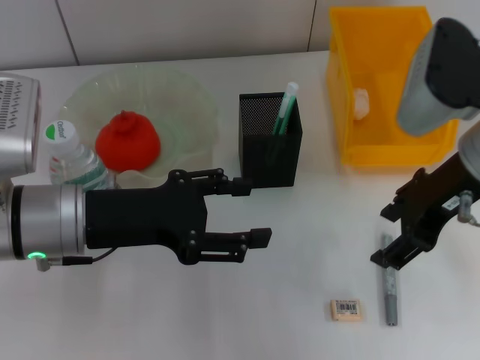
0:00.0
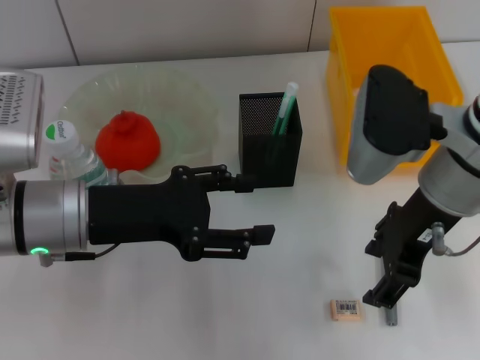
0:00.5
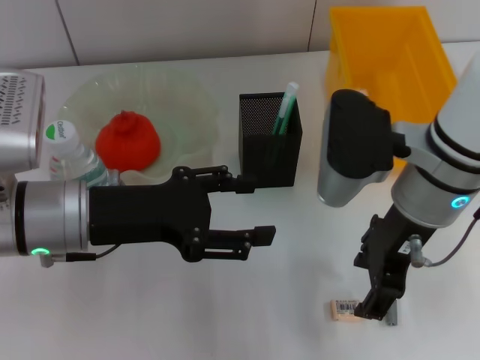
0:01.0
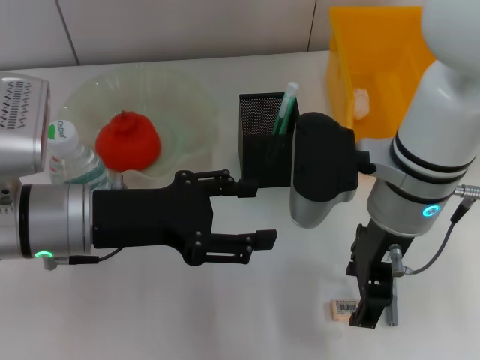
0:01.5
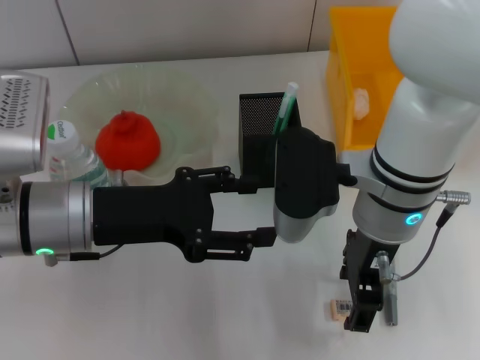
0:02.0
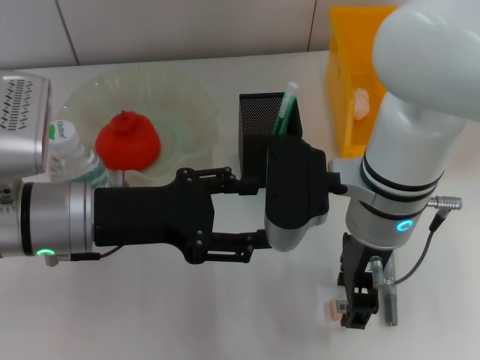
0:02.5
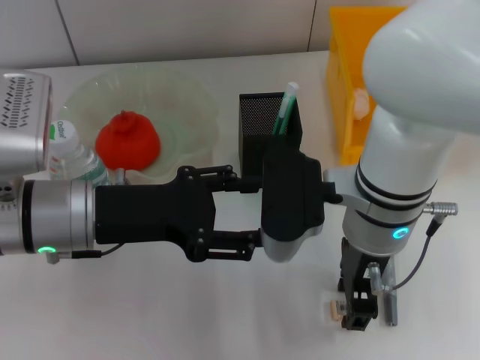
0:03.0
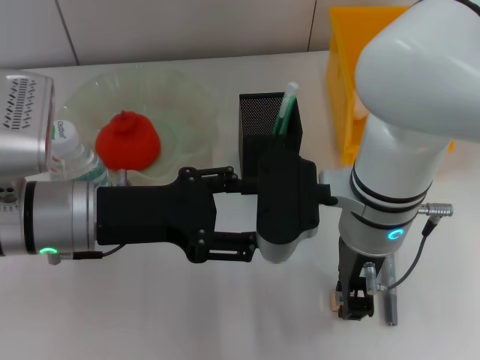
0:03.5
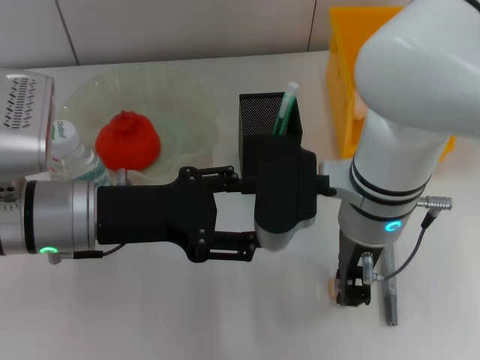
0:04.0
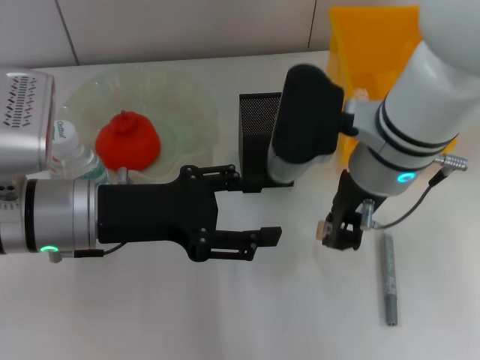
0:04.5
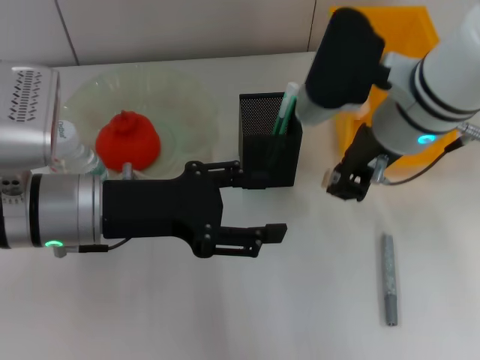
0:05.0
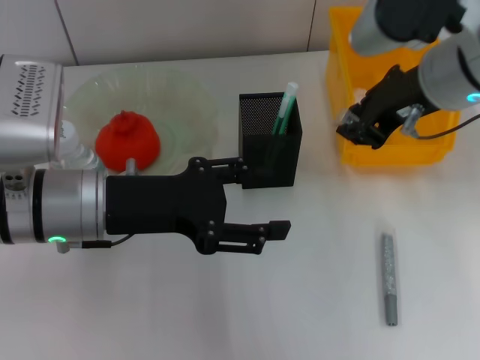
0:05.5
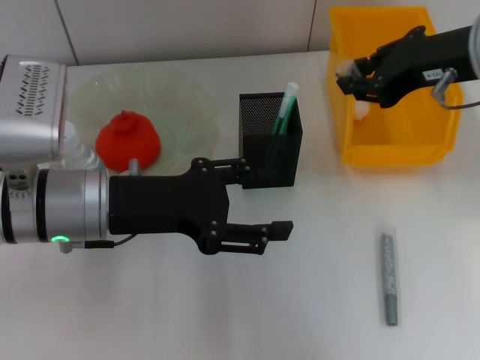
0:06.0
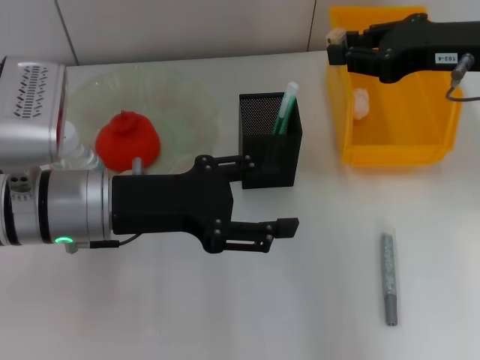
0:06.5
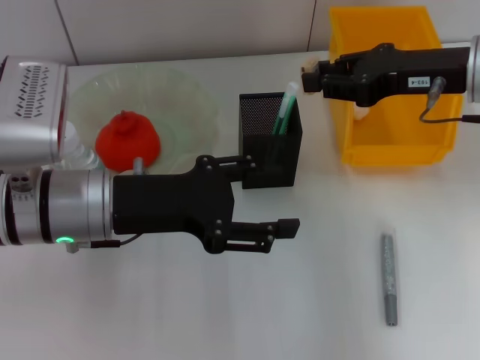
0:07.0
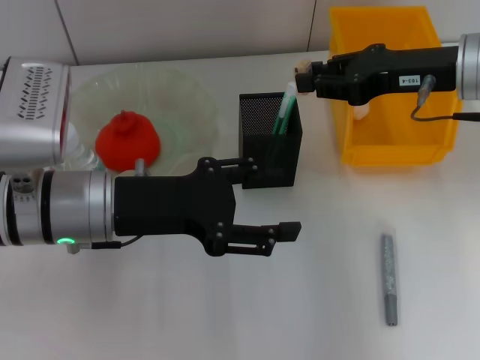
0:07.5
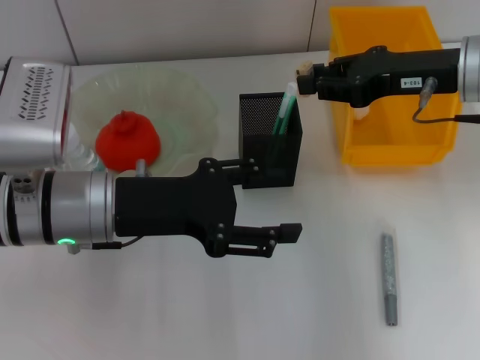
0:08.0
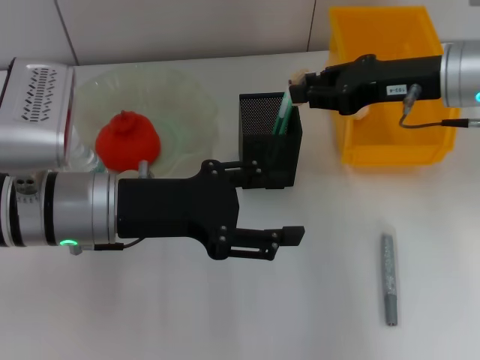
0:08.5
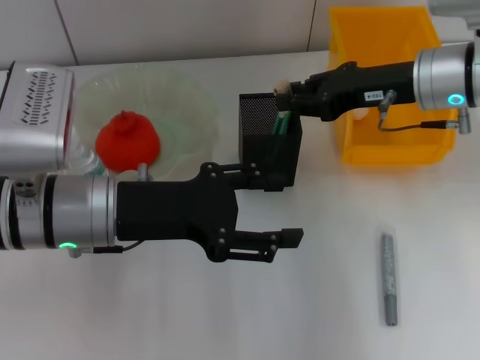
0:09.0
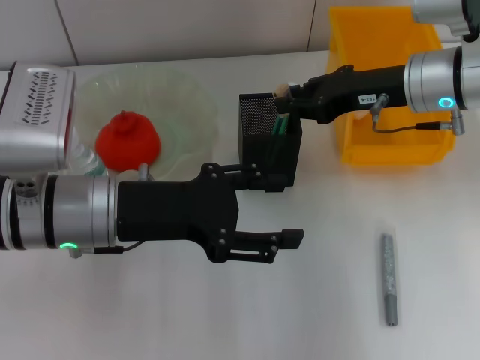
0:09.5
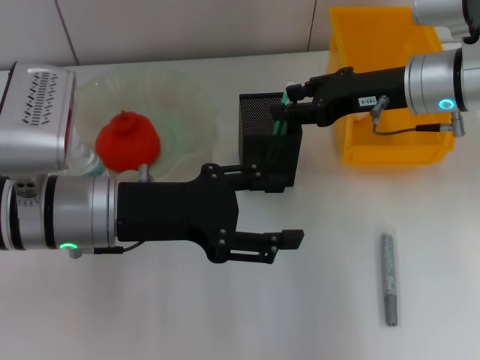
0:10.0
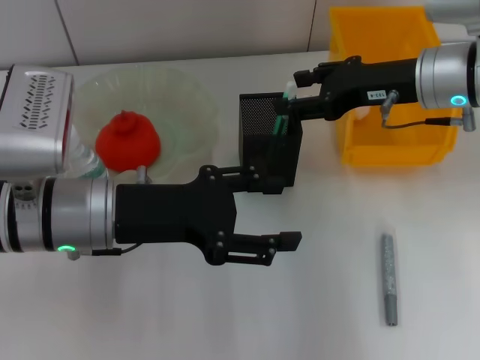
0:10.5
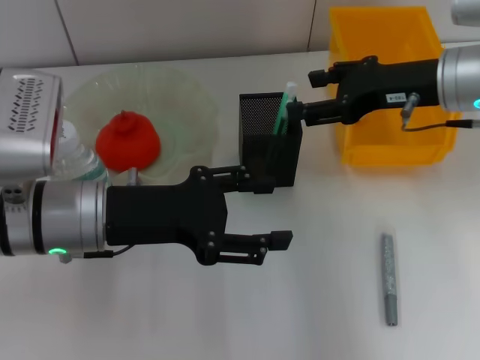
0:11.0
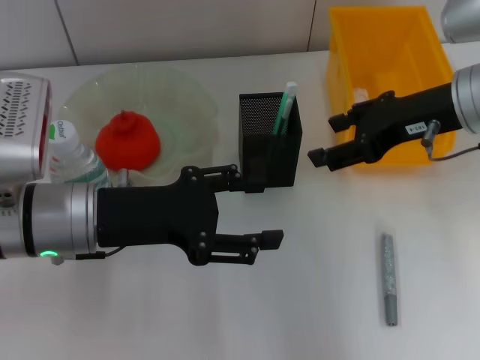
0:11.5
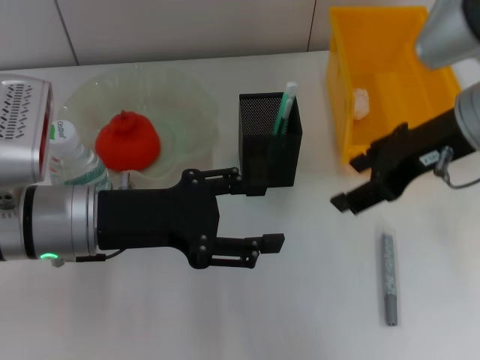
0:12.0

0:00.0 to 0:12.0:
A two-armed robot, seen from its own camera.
Step, 0:00.0 to 0:03.5: Grab the eraser with the right hand.
Step, 0:04.0 to 0:10.0: Put the eraser into the pen holder with the right hand.
0:00.0 to 0:02.0: The right gripper is displaced to the left by about 10 cm.
0:02.0 to 0:04.0: The right gripper closes.
0:04.0 to 0:06.0: The right gripper travels to the right and upward by some 15 cm.
0:06.0 to 0:08.0: The right gripper goes some 5 cm downward.
0:08.0 to 0:10.0: The grippers stay close to where they were, moving slightly.
0:10.0 to 0:12.0: The right gripper heads backward and upward, covering some 10 cm, and opens its fingers.

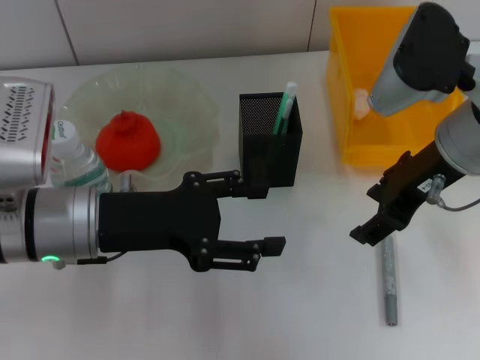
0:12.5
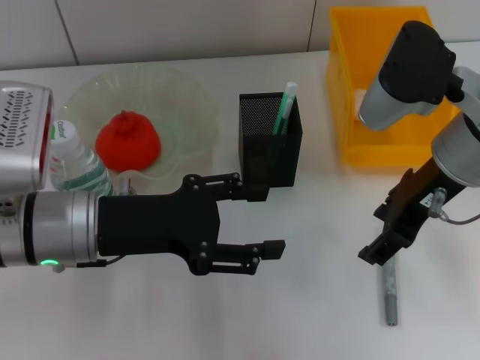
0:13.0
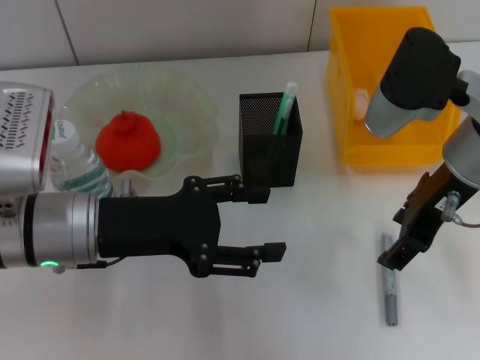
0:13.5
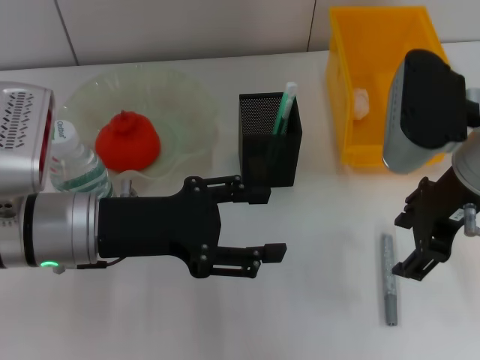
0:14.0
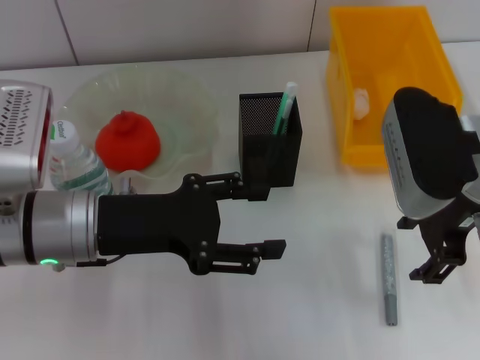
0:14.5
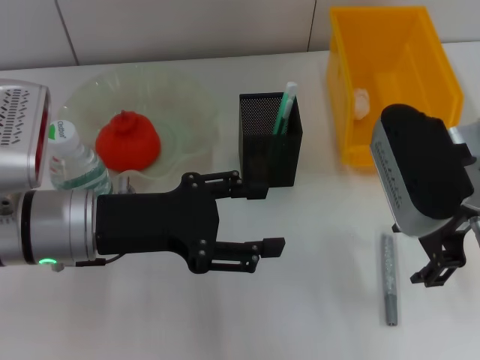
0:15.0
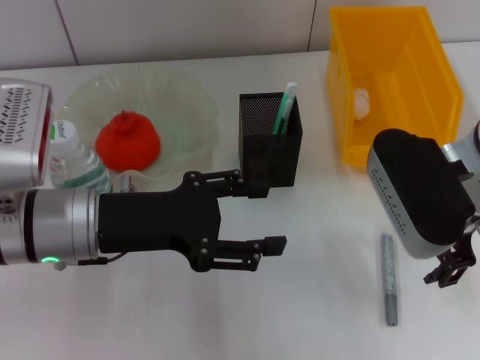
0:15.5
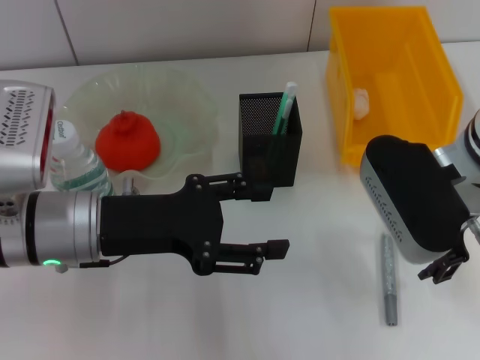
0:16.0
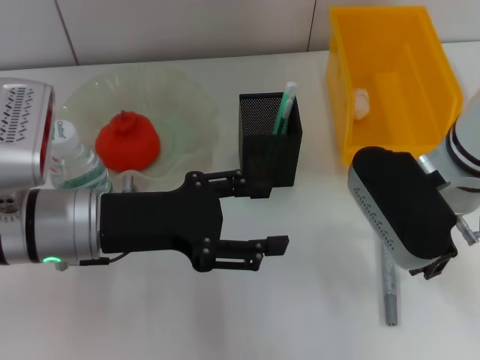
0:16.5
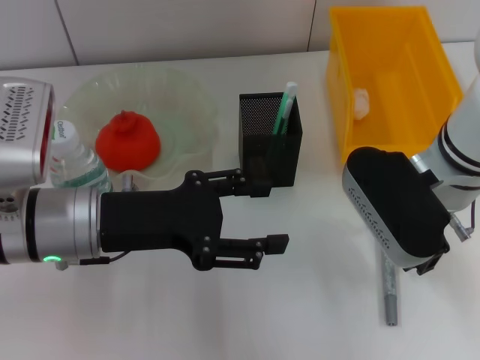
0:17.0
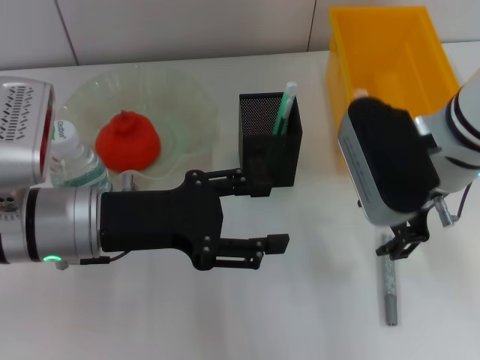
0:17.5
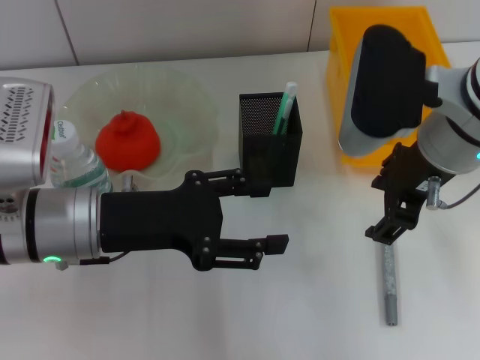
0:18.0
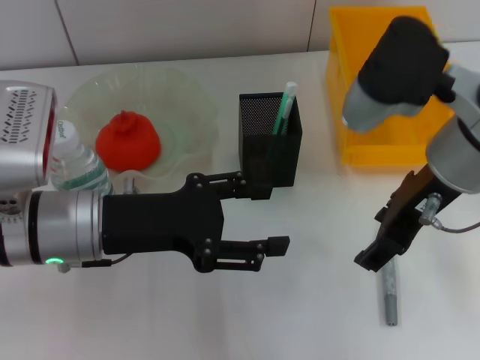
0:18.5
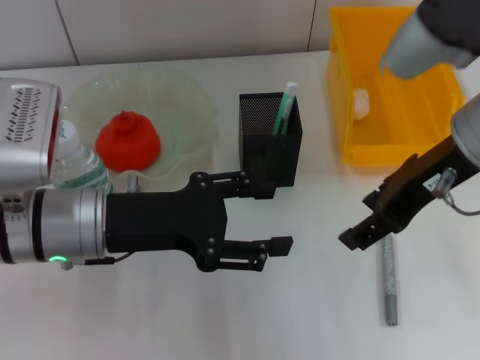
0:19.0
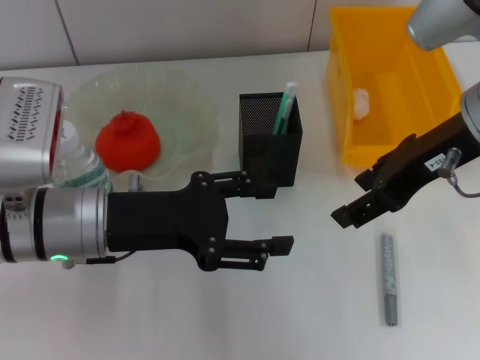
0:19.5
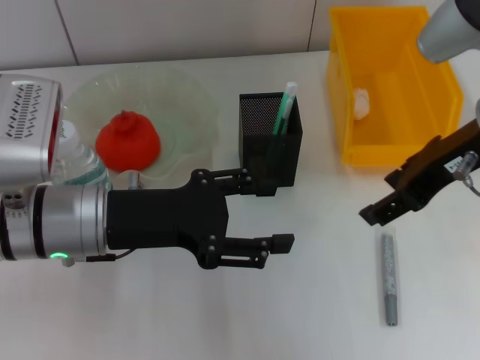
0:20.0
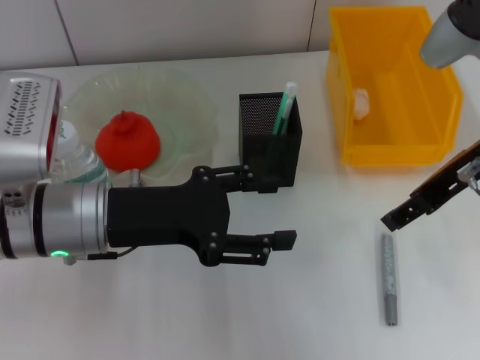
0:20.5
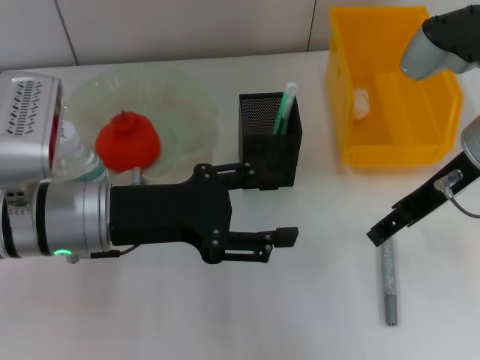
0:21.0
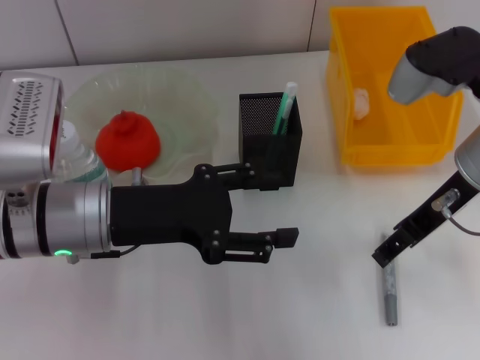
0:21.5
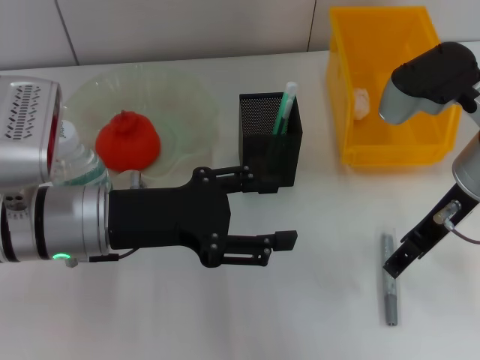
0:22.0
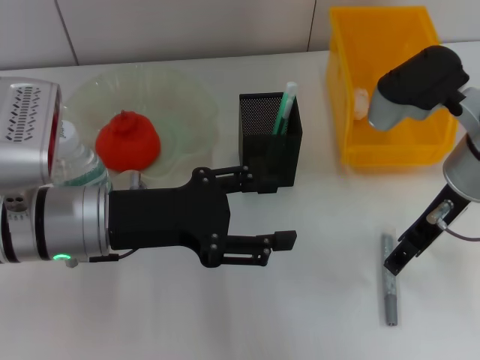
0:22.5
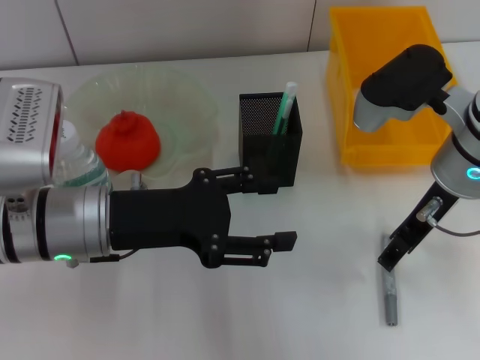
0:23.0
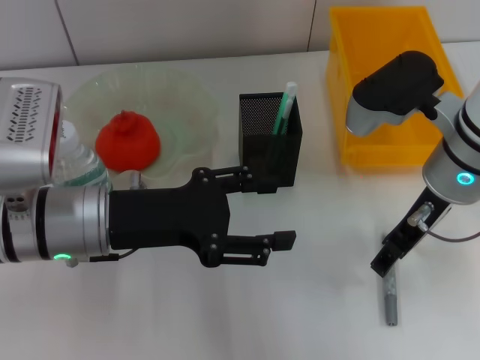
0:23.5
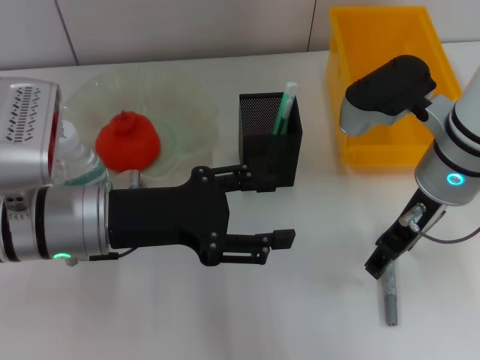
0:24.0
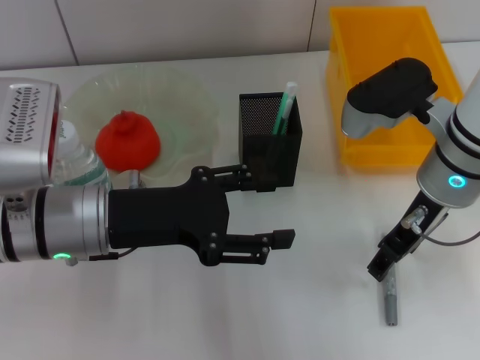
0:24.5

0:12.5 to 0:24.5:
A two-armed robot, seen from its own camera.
0:16.5 to 0:18.5: The right gripper moves upward, roughly 5 cm.
0:18.5 to 0:20.5: The right gripper is displaced to the right by some 5 cm.
0:20.5 to 0:22.5: The right gripper ends up some 5 cm from where it was.
0:22.5 to 0:24.5: The grippers move only a little.

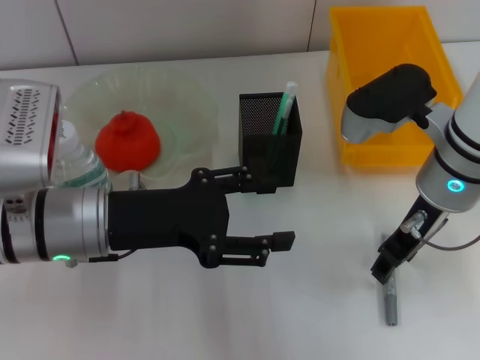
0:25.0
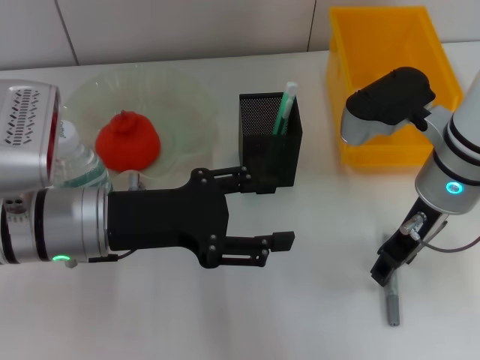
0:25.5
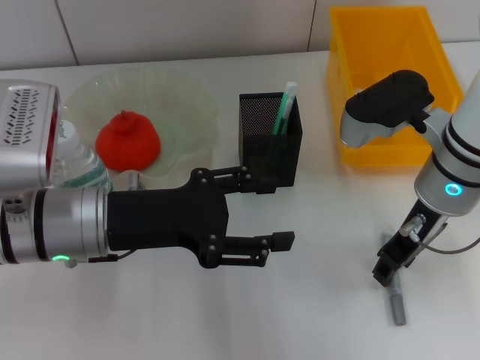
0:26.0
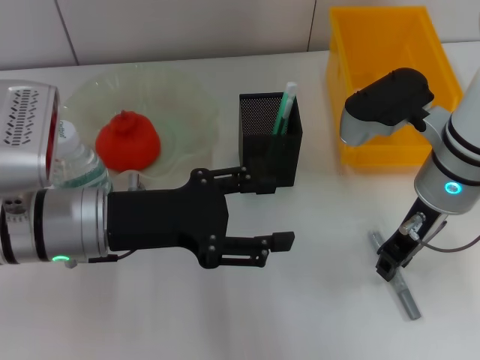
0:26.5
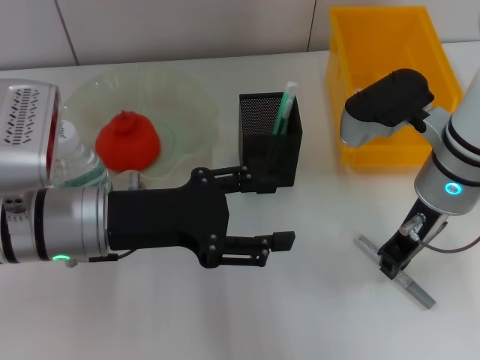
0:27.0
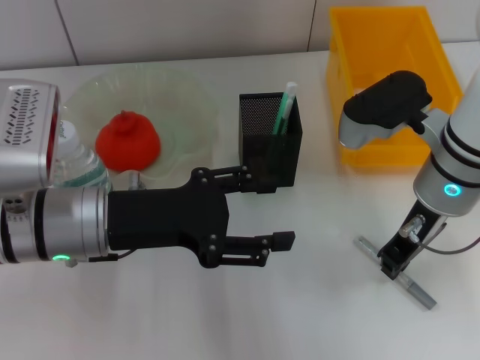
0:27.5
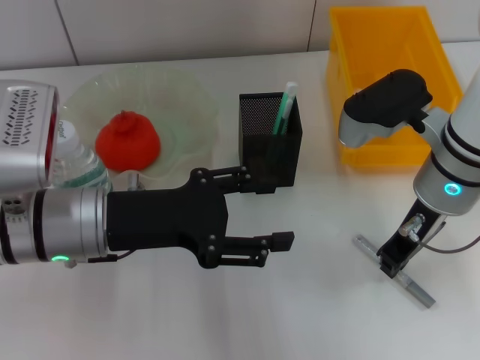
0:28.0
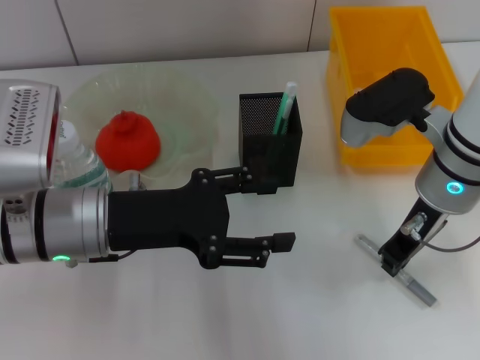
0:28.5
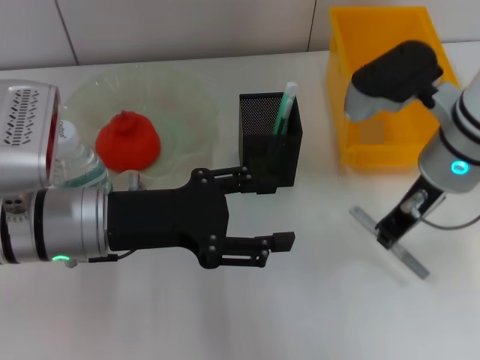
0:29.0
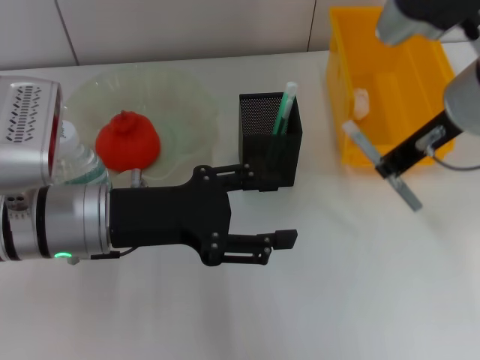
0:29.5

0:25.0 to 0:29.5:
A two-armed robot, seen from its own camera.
Step, 0:25.0 to 0:28.0: Grab the gray glue with the right hand.
0:25.0 to 0:27.0: The right gripper closes.
0:27.0 to 0:29.5: The right gripper is displaced upward by about 10 cm.
